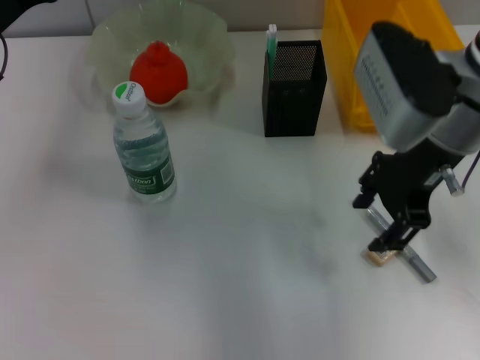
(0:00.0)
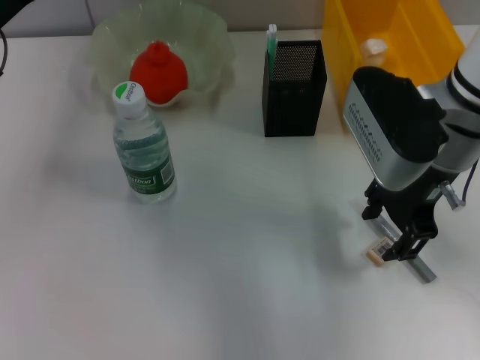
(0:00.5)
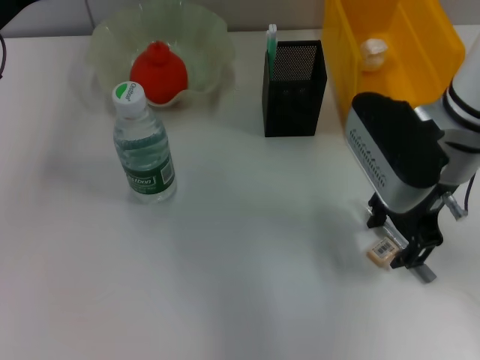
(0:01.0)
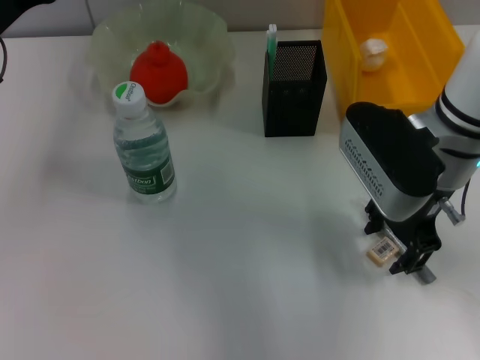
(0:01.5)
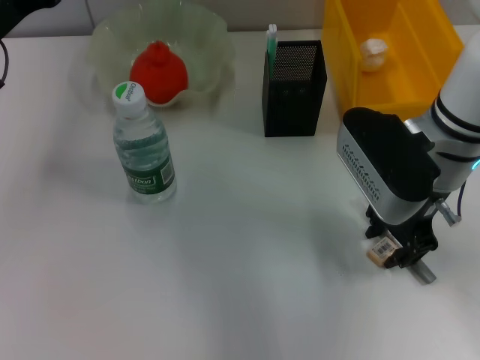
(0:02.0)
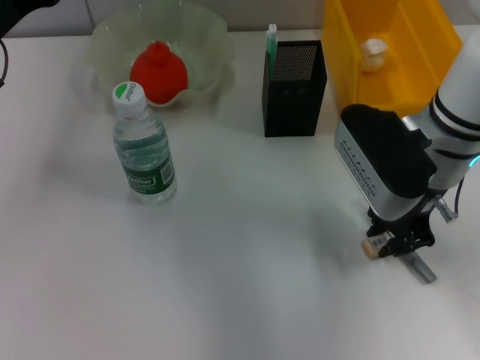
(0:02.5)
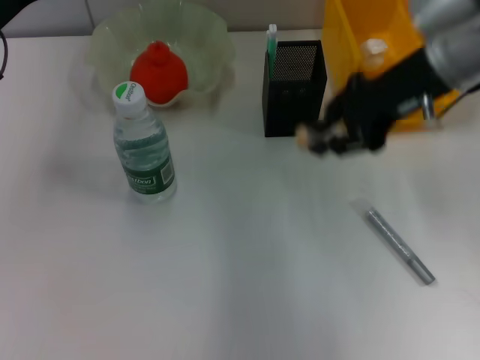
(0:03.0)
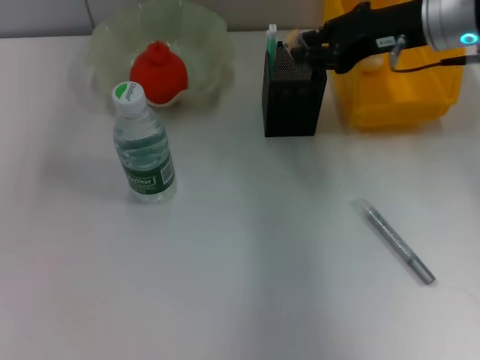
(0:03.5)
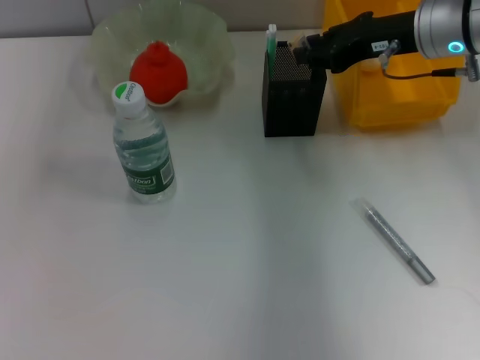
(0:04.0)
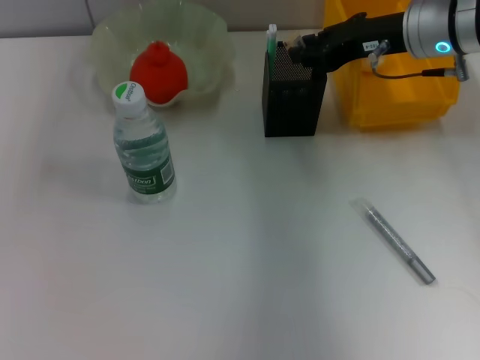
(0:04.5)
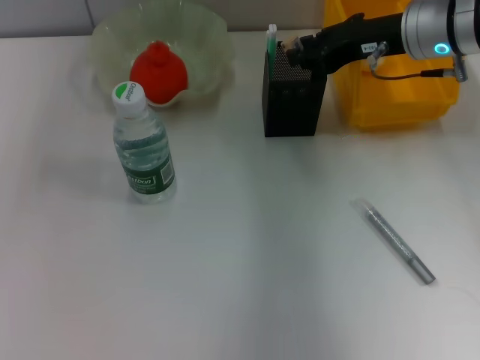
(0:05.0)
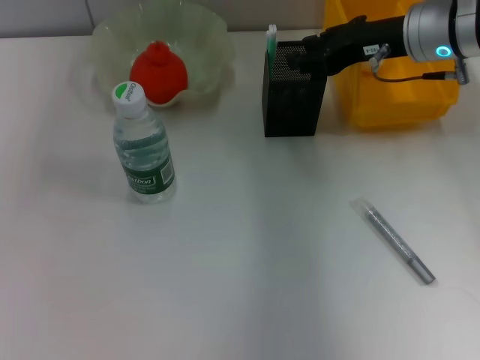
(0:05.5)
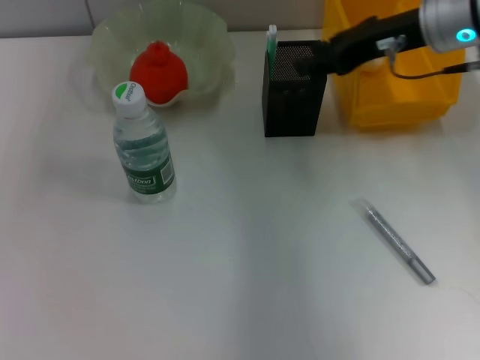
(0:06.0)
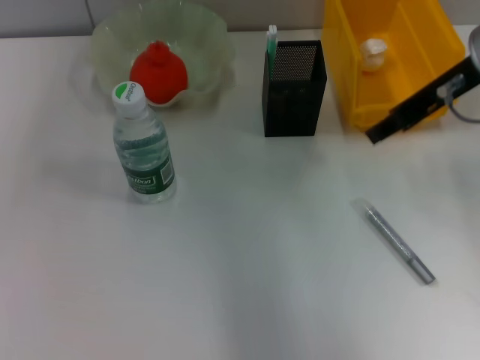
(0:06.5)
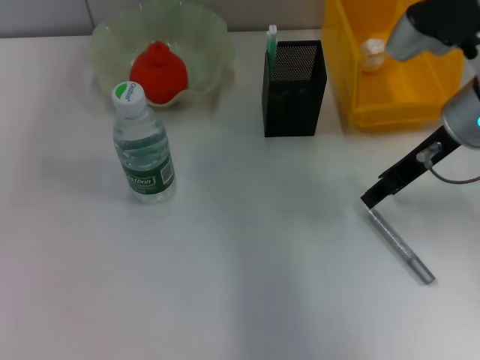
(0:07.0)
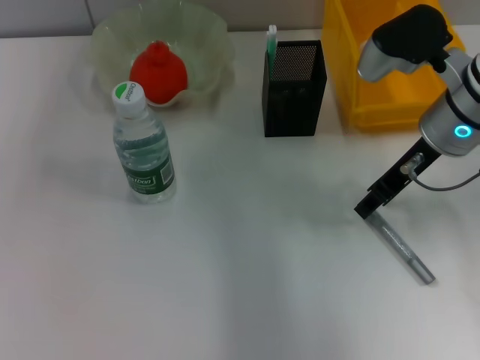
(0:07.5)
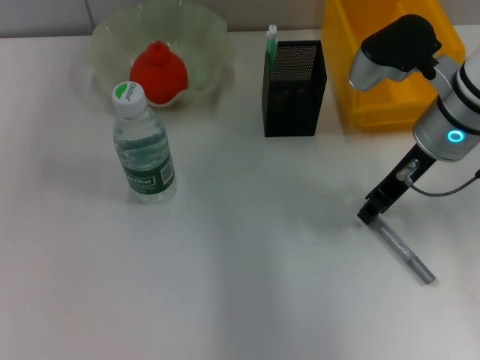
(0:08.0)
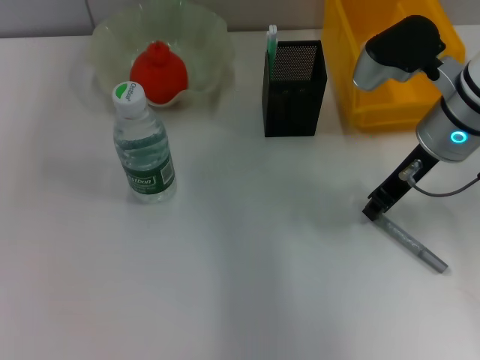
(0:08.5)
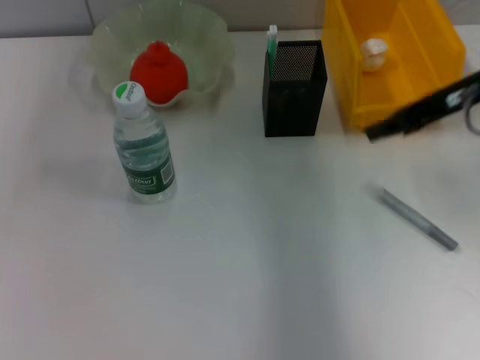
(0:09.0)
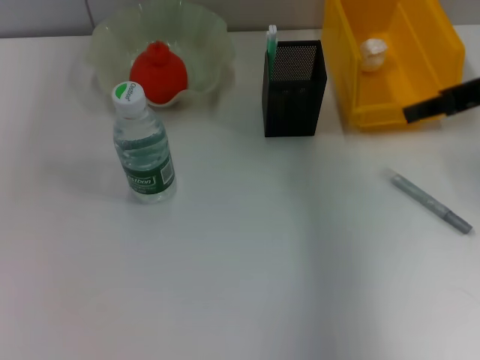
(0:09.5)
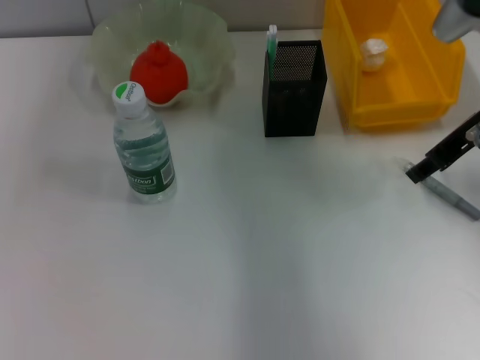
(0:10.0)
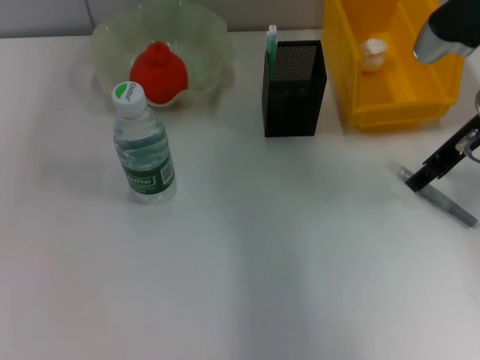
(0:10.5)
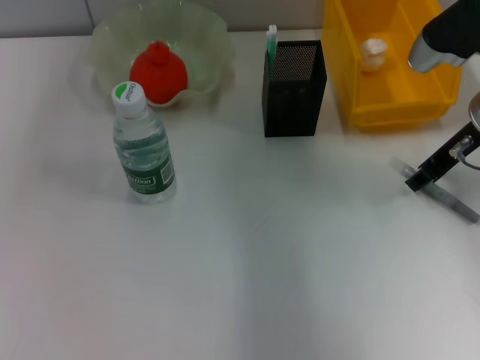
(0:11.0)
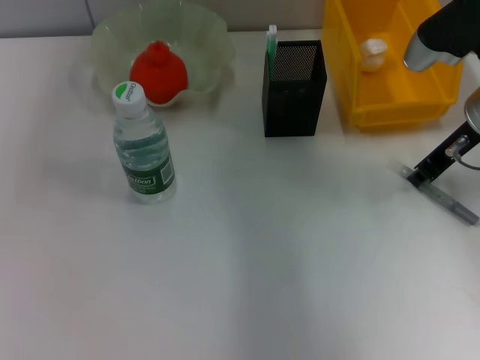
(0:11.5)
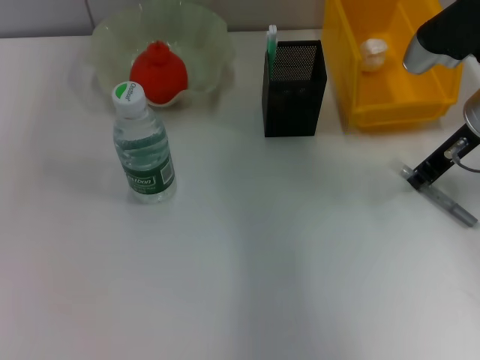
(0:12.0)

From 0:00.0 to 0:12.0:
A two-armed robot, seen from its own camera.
Step, from 0:00.0 to 0:02.0: Grab the eraser with the right hand.
Step, from 0:02.5 to 0:05.5: Put the eraser into the pen holder with the right hand.
From 0:00.0 to 0:02.0: The grippers move only a little.
From 0:02.0 to 0:04.0: The right gripper is displaced forward by about 10 cm, and closes up.
From 0:04.0 to 0:06.0: The grippers move only a little.
From 0:06.0 to 0:08.0: The right gripper heads downward, covering roughly 5 cm.
From 0:08.0 to 0:10.0: The right gripper goes some 5 cm to the right.
From 0:10.0 to 0:12.0: The right gripper opens and closes again.

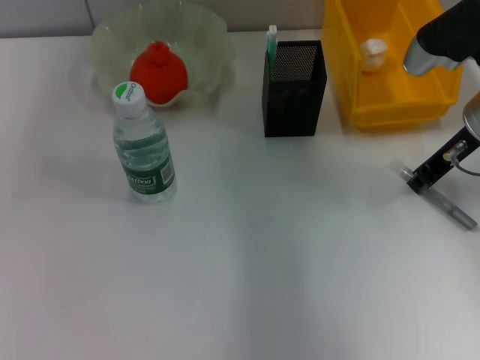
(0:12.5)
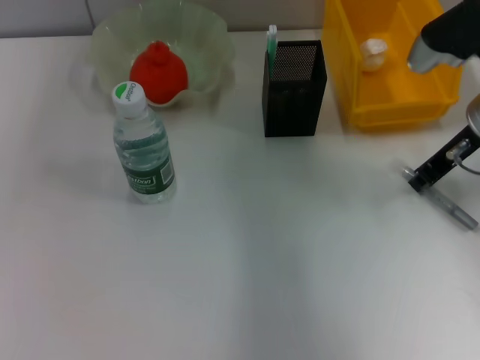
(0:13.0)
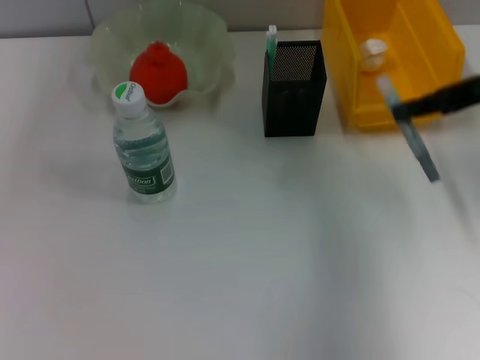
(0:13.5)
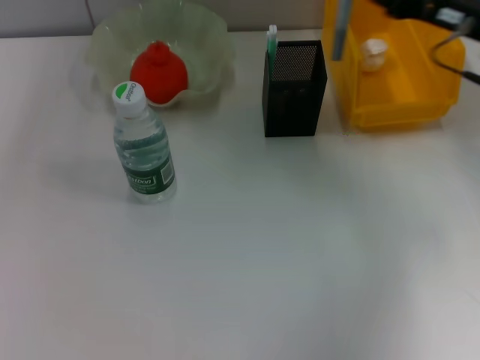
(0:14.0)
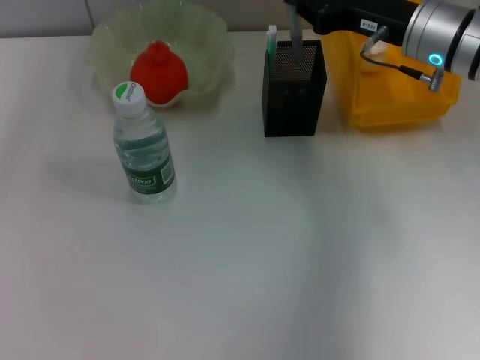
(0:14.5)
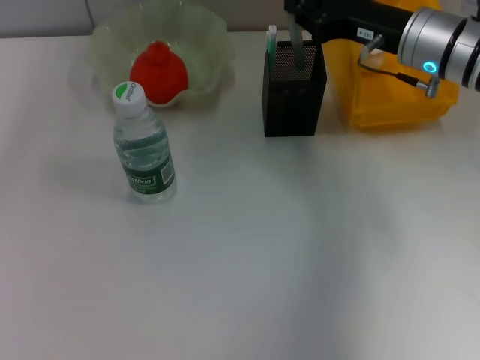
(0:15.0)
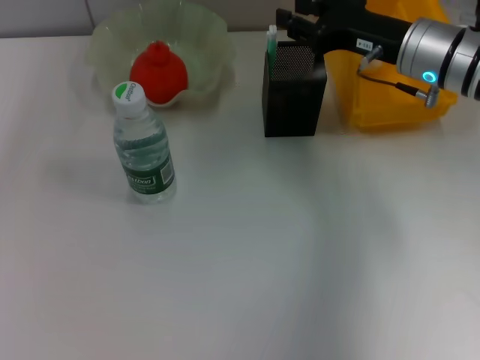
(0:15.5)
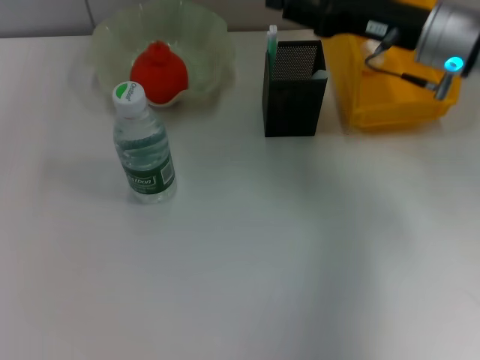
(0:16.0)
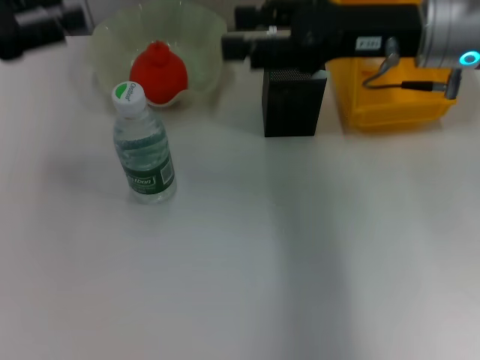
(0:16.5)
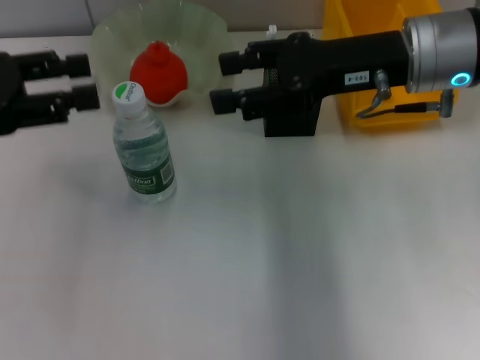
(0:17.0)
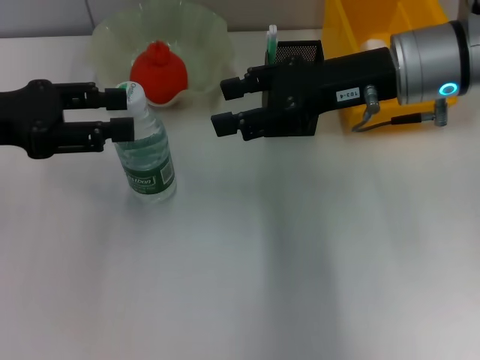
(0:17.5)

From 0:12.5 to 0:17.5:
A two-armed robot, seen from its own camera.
Step, from 0:13.0 to 0:15.5: Place the gray glue into the pen holder with the right hand.
From 0:15.0 to 0:17.5: The right gripper moves approximately 10 cm, and opens up.

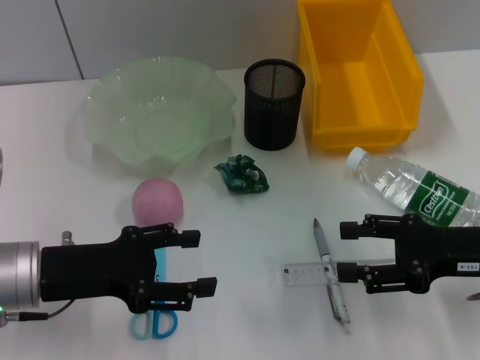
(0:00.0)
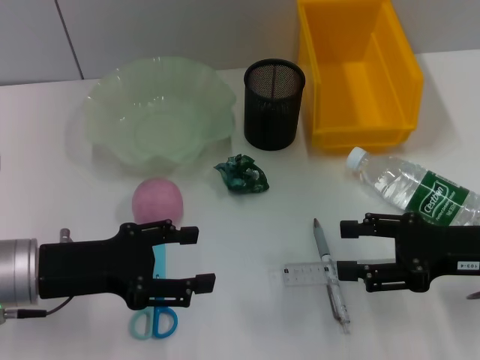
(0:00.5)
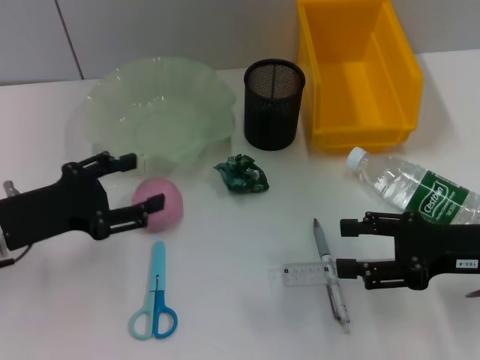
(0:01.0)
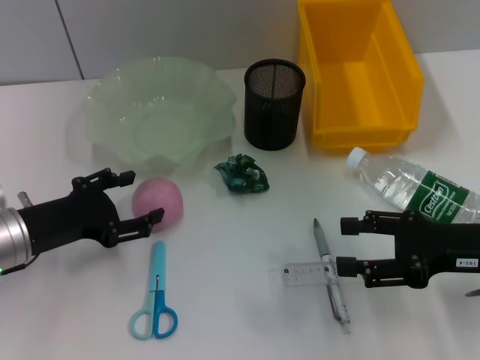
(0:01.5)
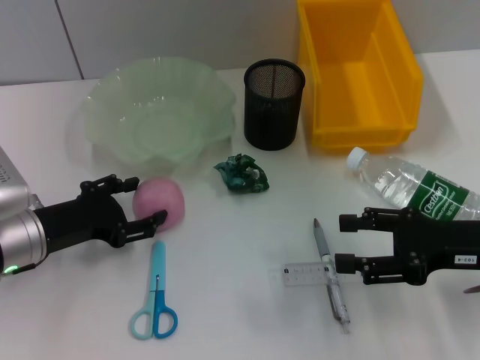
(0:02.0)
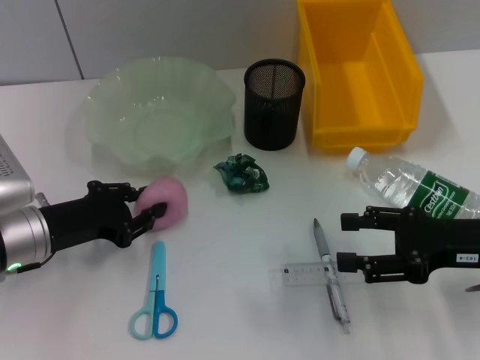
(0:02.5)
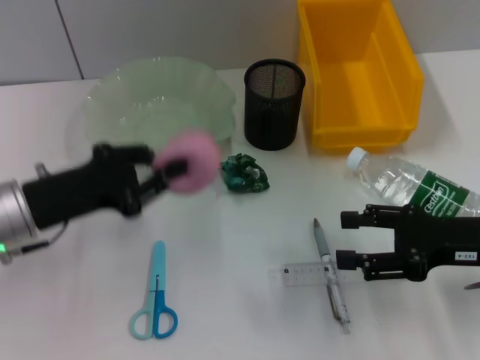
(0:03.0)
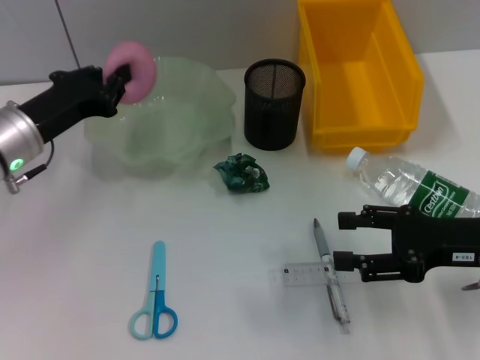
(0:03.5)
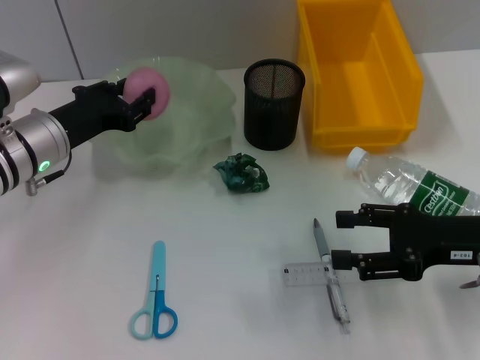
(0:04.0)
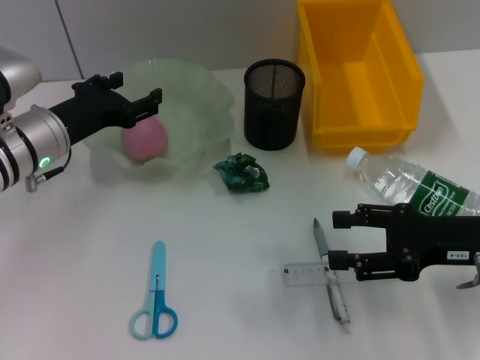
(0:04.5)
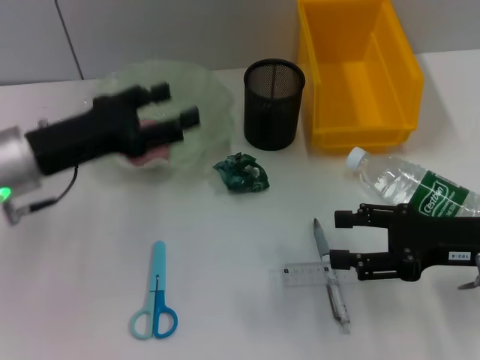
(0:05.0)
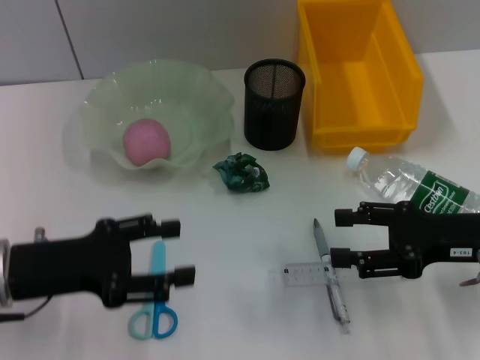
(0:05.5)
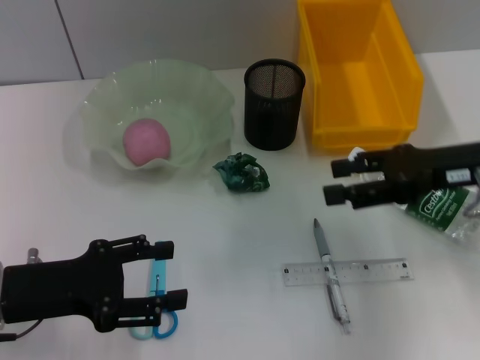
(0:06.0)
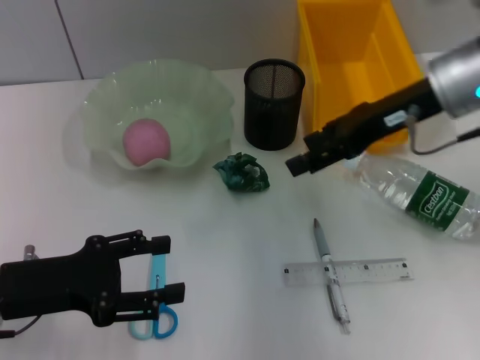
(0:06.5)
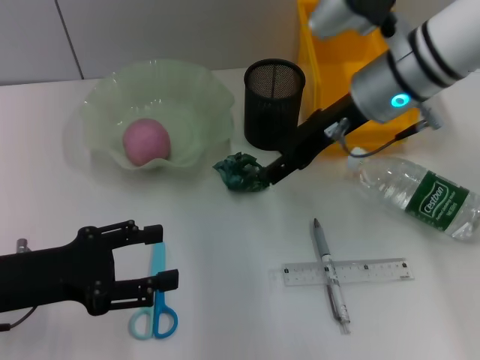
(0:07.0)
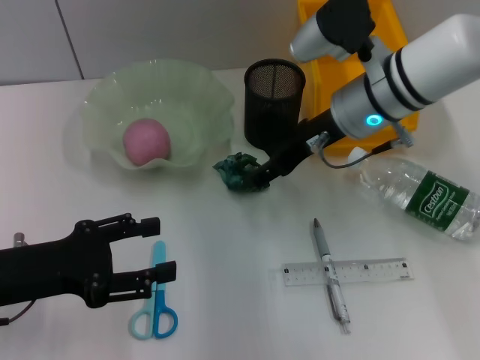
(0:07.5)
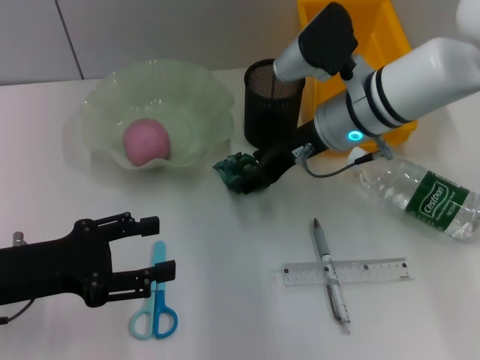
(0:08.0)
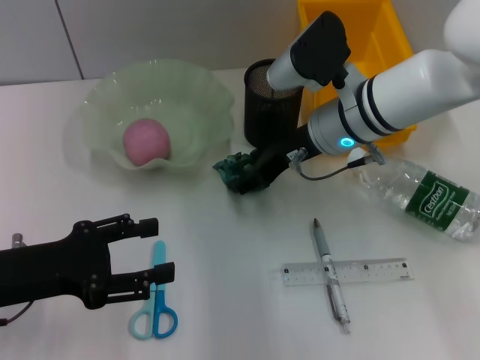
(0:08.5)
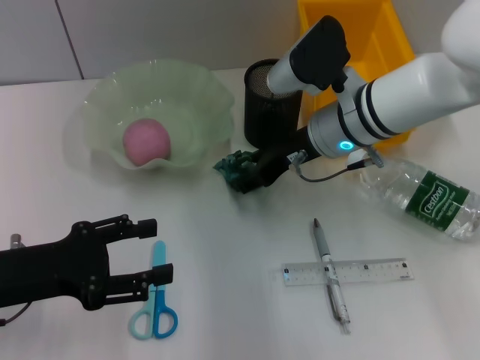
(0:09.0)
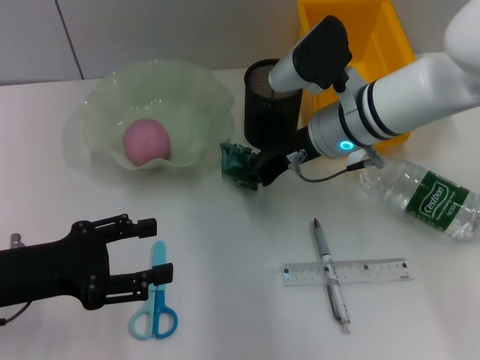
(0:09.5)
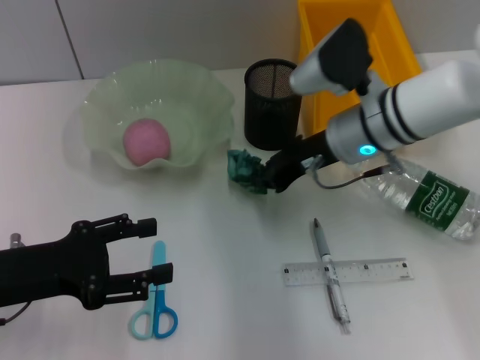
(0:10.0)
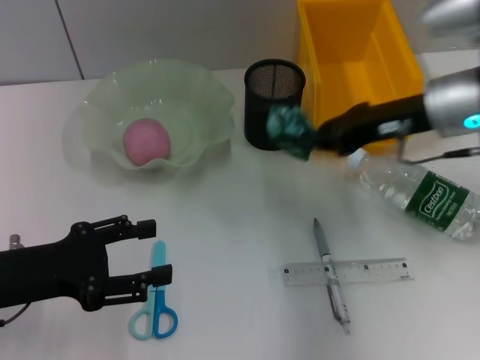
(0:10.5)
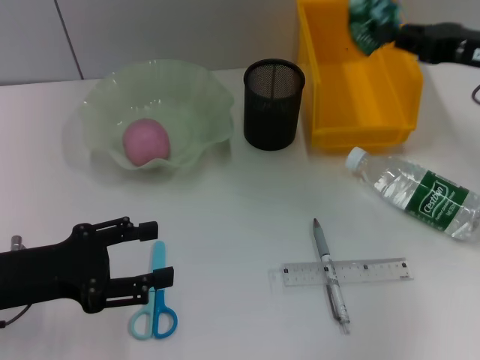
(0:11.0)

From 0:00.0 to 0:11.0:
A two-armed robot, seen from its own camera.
Step, from 0:00.0 to 0:02.0: Grab the peach with the left hand.
Step, from 0:03.0 to 0:04.5: Place the peach into the fruit bowl with the left hand.
Step, from 0:05.0 to 0:09.5: Grab the plastic with the right hand.
From 0:00.0 to 0:02.0: The left gripper changes place by about 5 cm.
From 0:02.0 to 0:03.5: The left gripper shifts approximately 5 cm forward, and closes.
From 0:03.5 to 0:05.5: The left gripper is displaced backward by about 10 cm, and opens.
From 0:05.5 to 0:07.5: The right gripper moves forward, to the left and upward, some 20 cm.
From 0:07.5 to 0:09.0: The grippers stay close to where they were, moving slightly.
From 0:09.0 to 0:11.0: The right gripper shifts approximately 20 cm to the right, and closes up.
